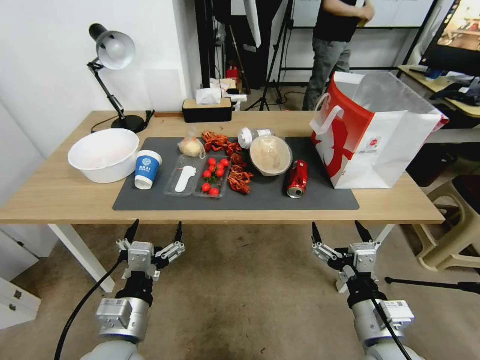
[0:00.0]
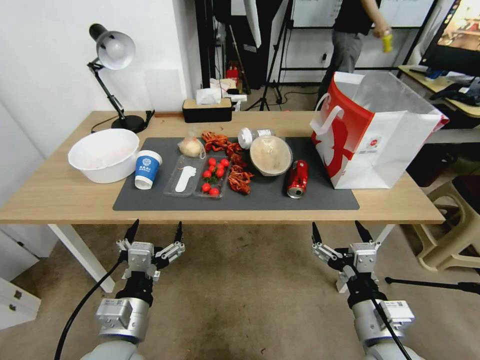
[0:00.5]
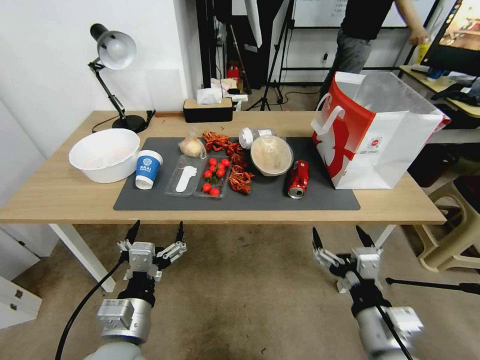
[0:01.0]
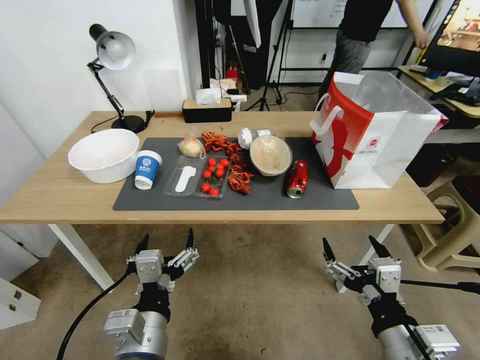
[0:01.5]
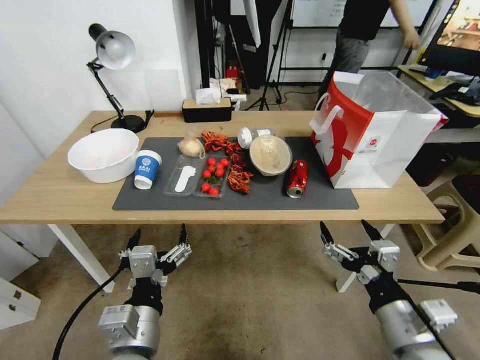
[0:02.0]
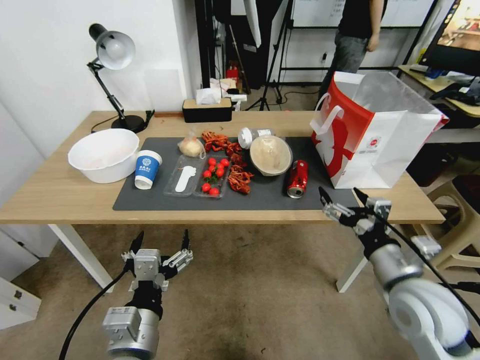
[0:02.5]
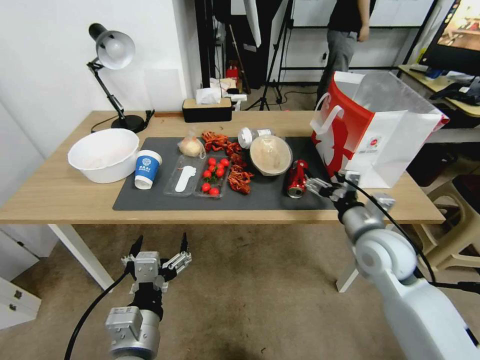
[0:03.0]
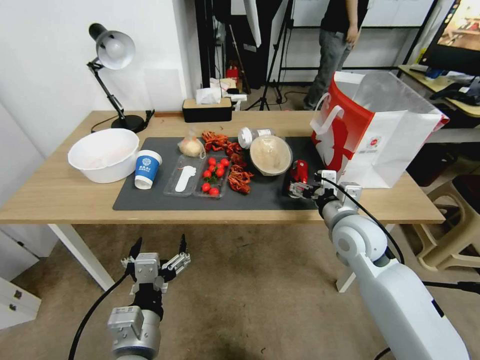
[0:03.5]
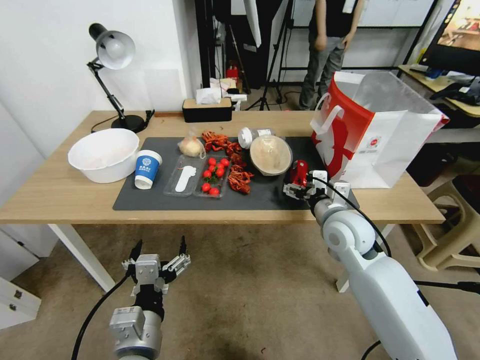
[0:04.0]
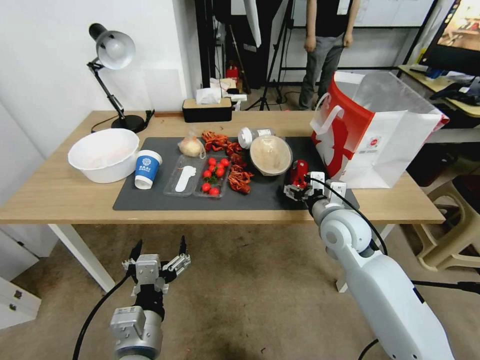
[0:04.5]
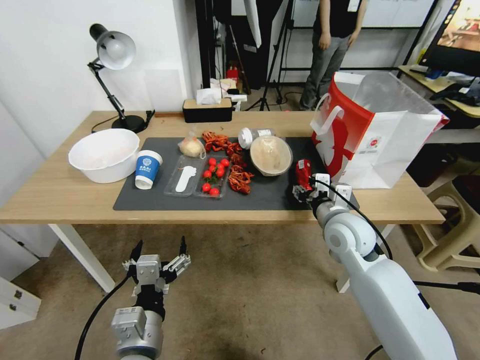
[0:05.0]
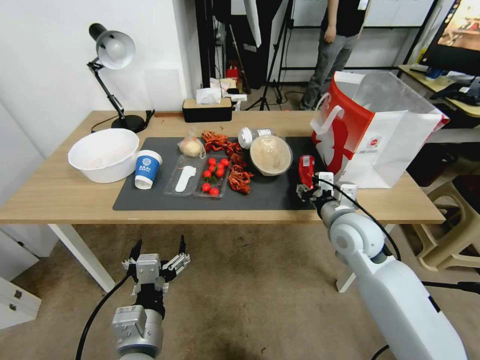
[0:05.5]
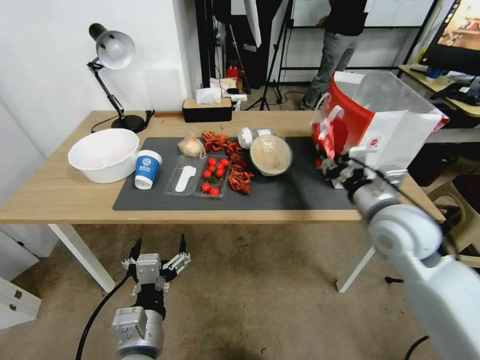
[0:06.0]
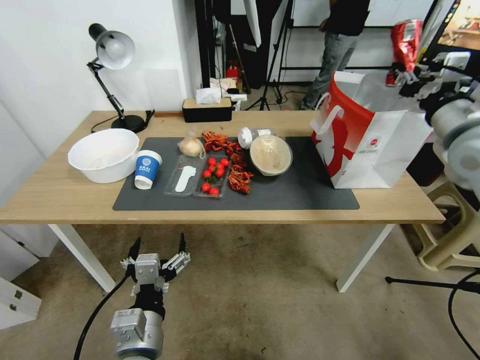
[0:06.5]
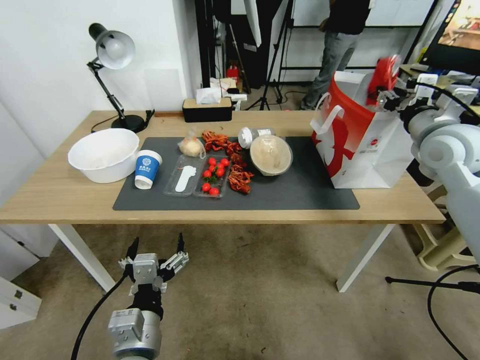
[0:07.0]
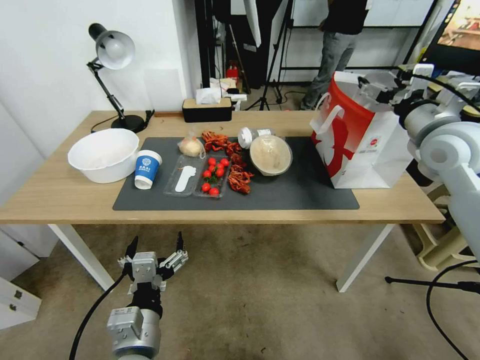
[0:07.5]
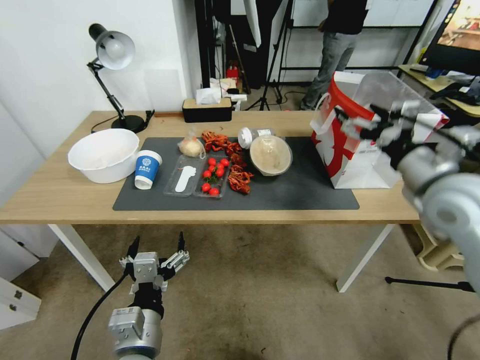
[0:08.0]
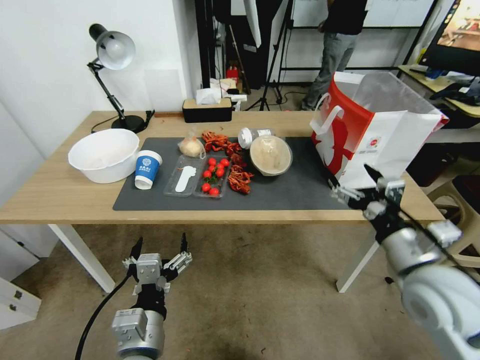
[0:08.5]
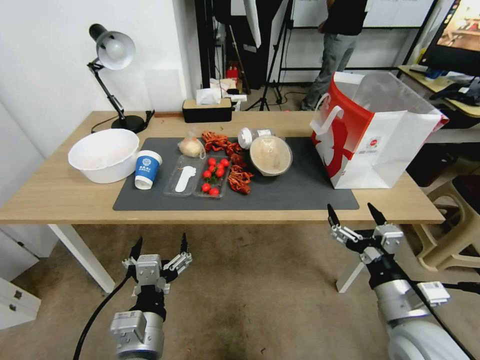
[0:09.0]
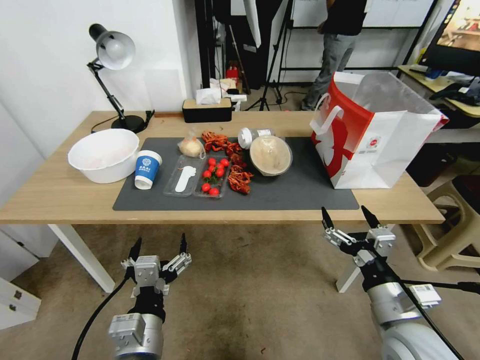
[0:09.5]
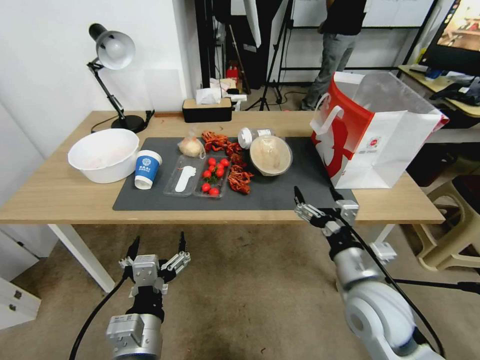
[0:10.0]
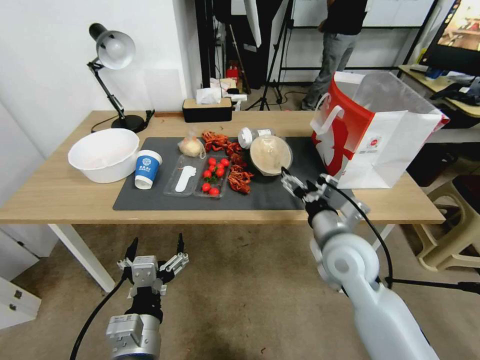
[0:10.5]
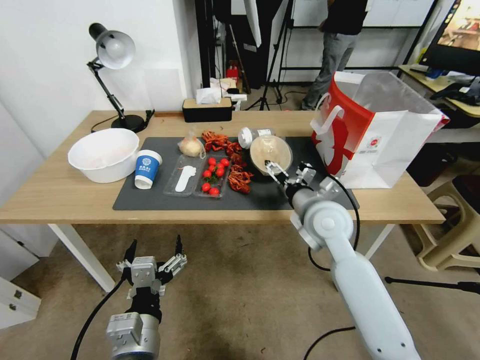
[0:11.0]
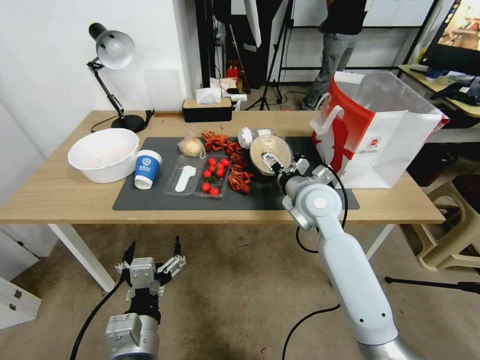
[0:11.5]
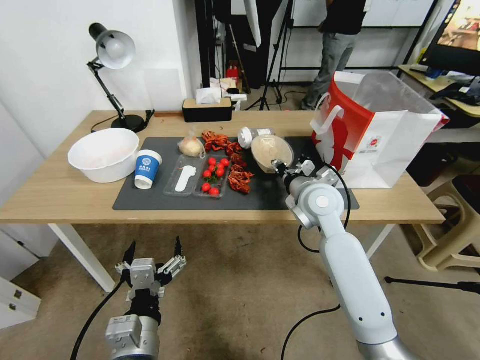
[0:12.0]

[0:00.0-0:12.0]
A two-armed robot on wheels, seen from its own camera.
2.0 to 4.0 s: The right gripper goes about 25 cm forward.
4.0 to 6.0 s: The right gripper travels upward and to the right by approximately 10 cm, and closes its fingers.
6.0 to 8.0 s: The right gripper is displaced upward and to the right by roughly 10 cm, goes forward and returns, some 10 cm each way, and opens.
8.0 to 10.0 s: The right gripper is displaced downward, backward and to the left by some 25 cm.
10.0 to 12.0 s: The right gripper travels forward by approximately 20 cm, and closes up.

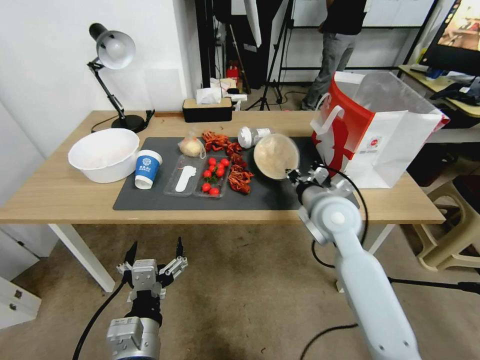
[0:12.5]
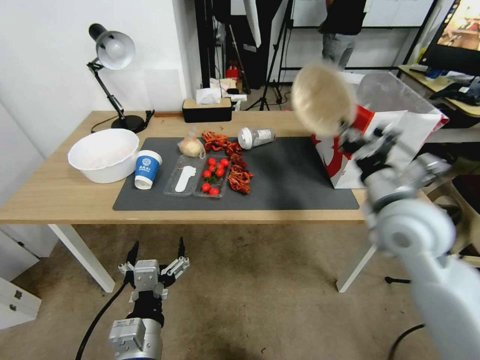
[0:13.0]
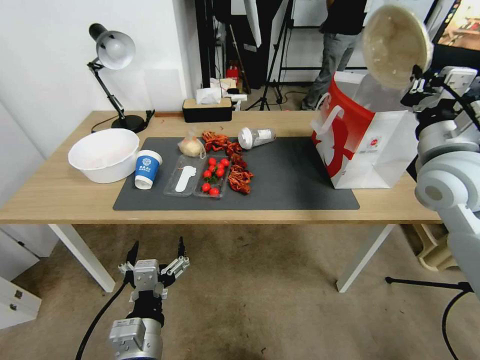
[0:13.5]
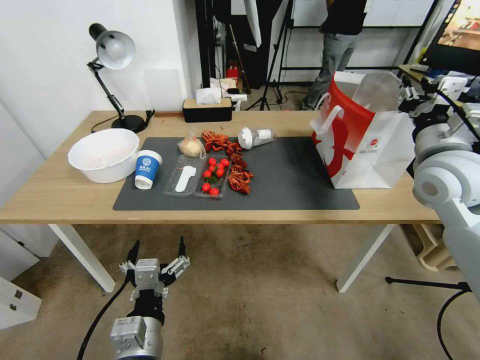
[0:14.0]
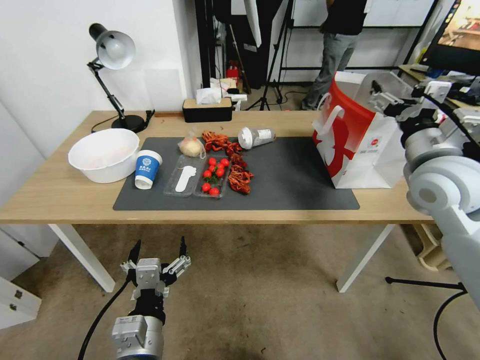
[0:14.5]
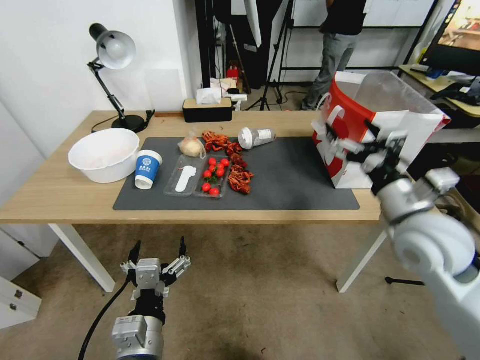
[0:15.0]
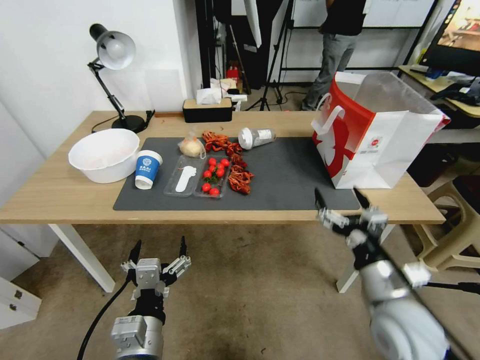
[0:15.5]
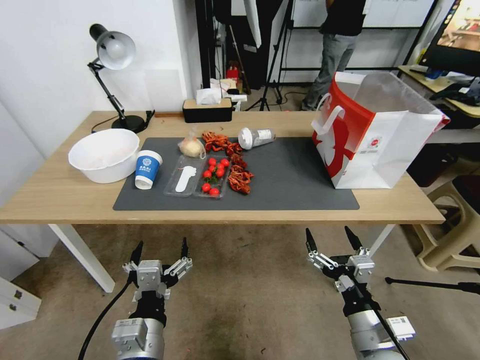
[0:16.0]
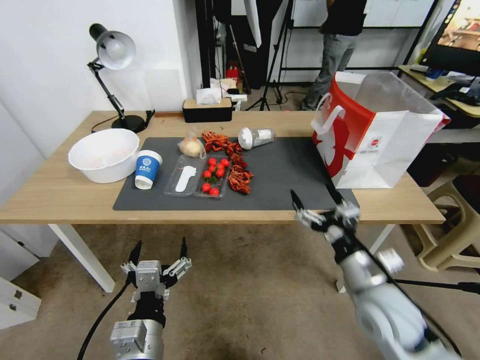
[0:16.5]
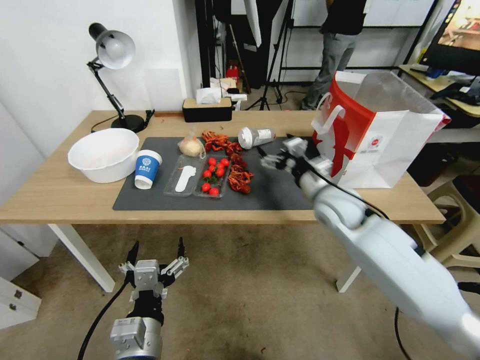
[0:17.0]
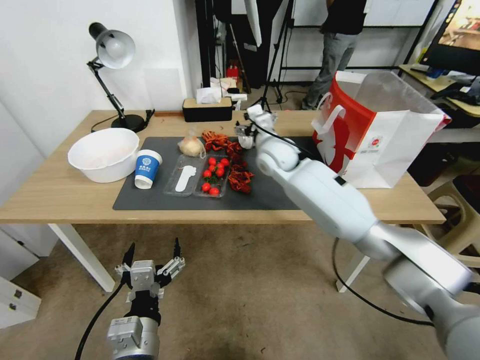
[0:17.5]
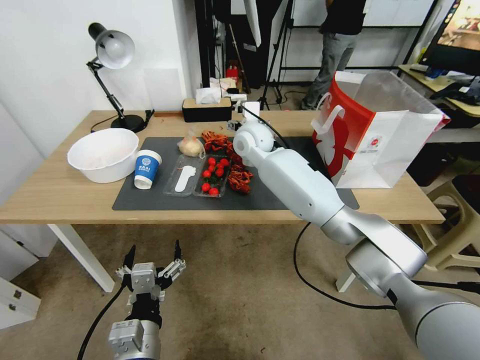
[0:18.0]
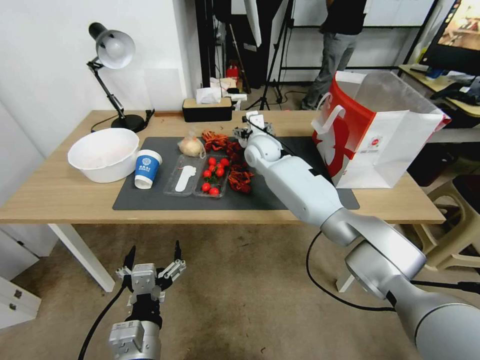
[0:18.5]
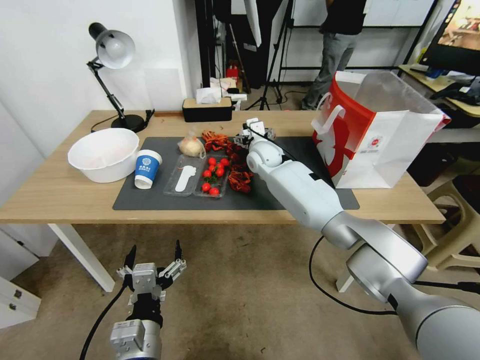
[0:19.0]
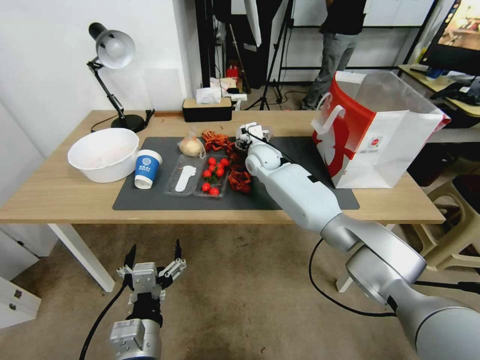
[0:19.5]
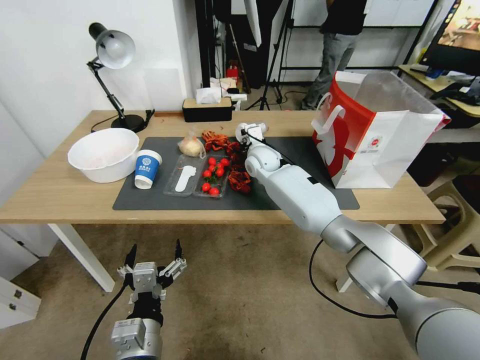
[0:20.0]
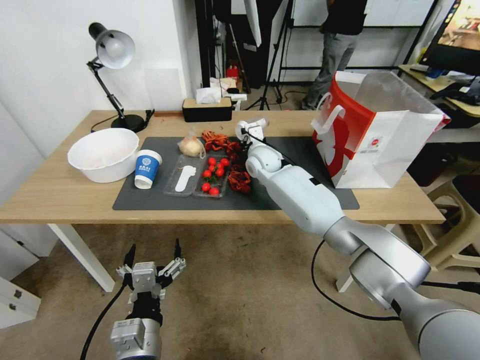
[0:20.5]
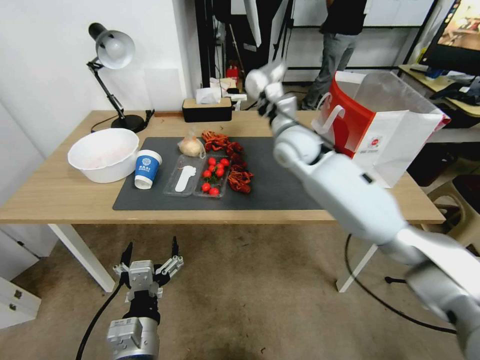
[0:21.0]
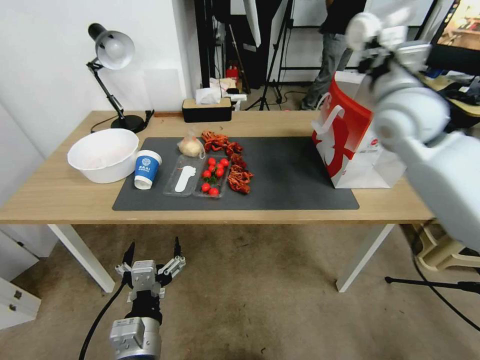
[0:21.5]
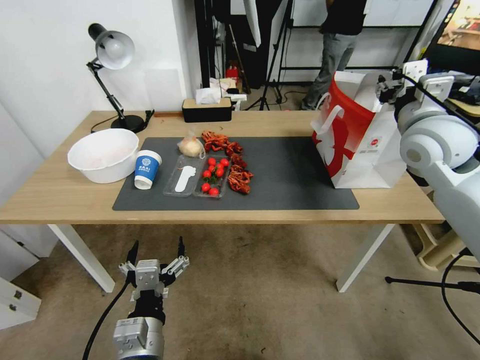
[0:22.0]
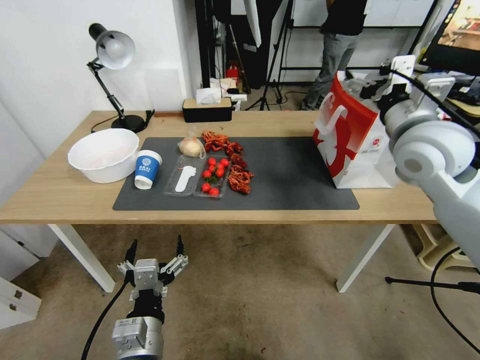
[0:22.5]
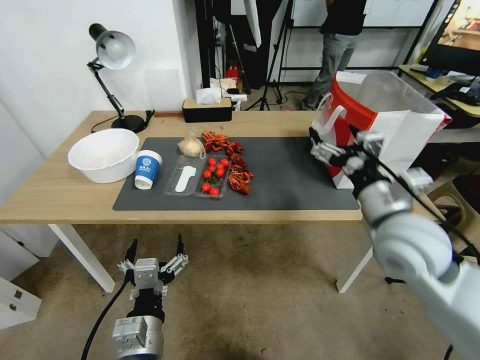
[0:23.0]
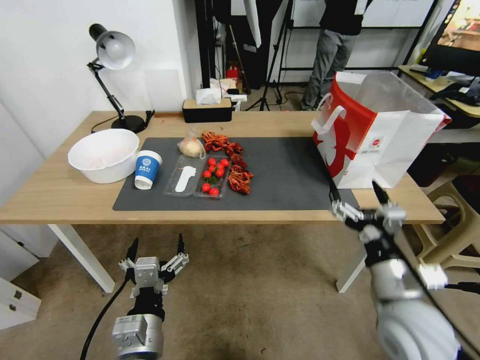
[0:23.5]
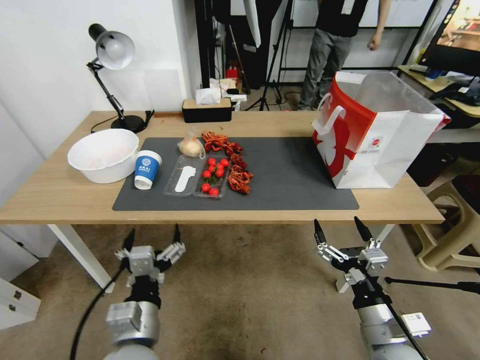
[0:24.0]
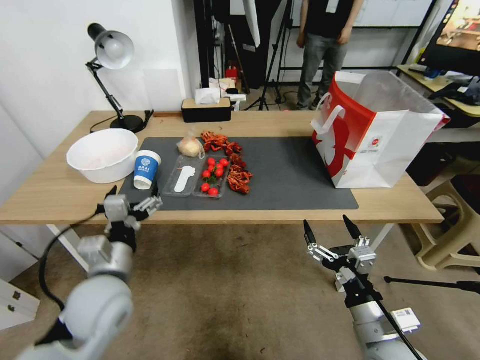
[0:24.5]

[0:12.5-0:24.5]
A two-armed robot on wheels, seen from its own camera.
12.5 to 14.5 s: The right gripper goes roughly 20 cm to the right and upward, and opens up.
14.5 to 16.5 s: The right gripper travels downward and backward by about 25 cm.
16.5 to 18.5 s: The right gripper travels forward and to the left by some 40 cm.
18.5 to 20.5 s: The right gripper shifts roughly 5 cm downward, and closes its fingers.
20.5 to 22.5 s: The right gripper travels to the right, upward and backward by approximately 35 cm, and opens.
22.5 to 24.5 s: The left gripper travels forward and to the left by some 15 cm, while the right gripper travels downward and backward by approximately 35 cm.

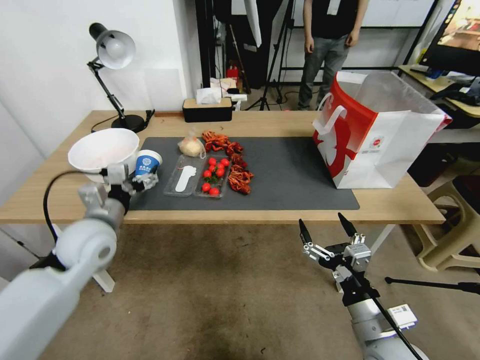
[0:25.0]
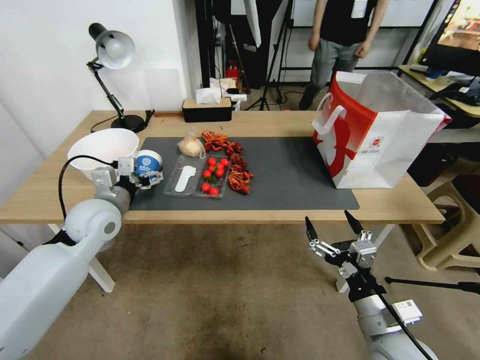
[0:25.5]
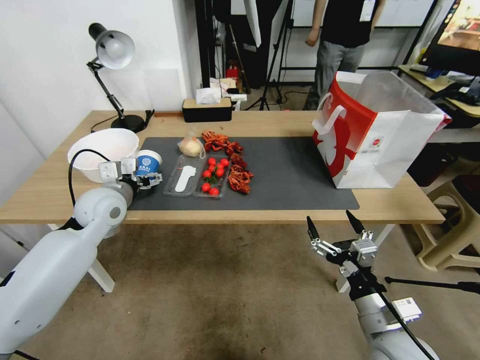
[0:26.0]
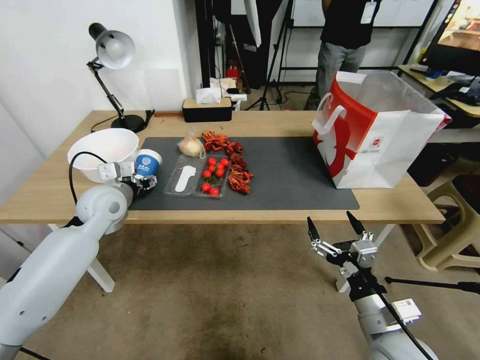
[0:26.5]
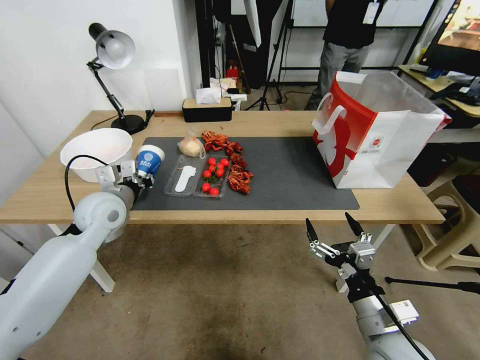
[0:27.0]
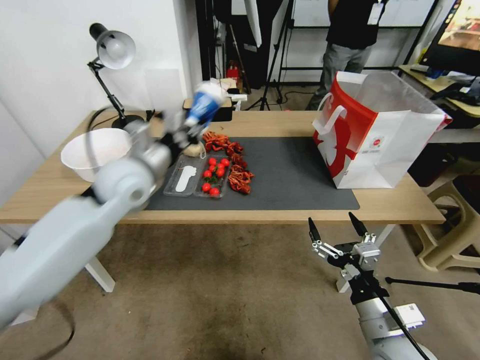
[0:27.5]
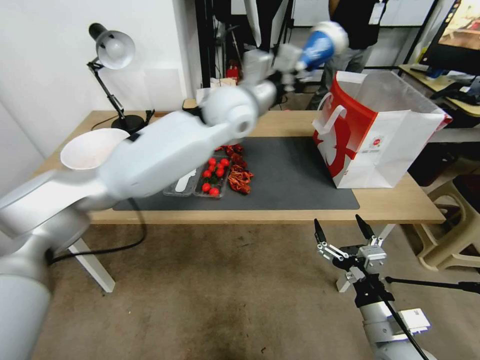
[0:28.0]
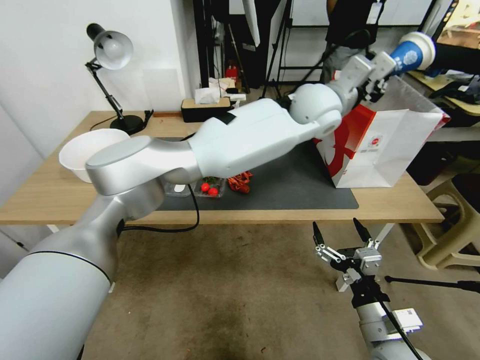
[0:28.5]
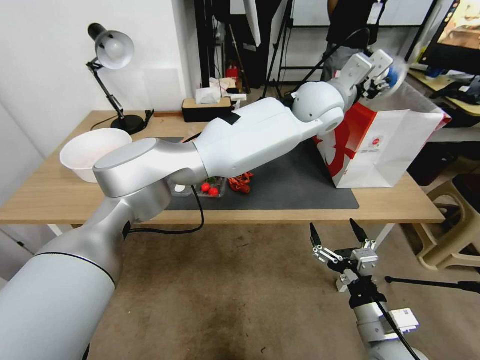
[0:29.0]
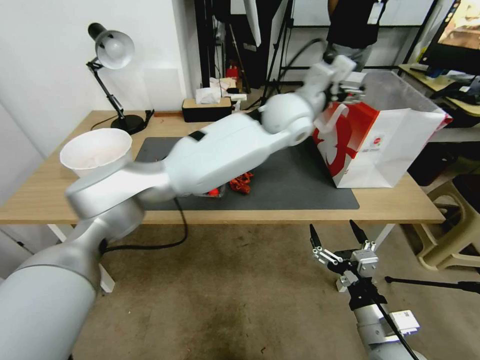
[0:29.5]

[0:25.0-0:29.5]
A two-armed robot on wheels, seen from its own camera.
25.0 to 27.0 s: The left gripper heads forward, covering about 5 cm, and closes its fingers.
27.0 to 29.5 s: The left gripper heads to the right and upward, covering roughly 40 cm, and opens.
